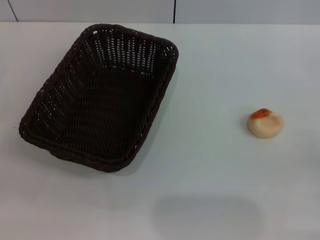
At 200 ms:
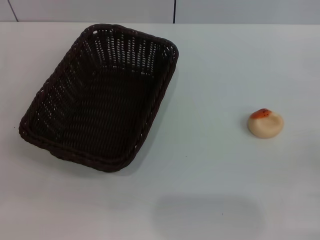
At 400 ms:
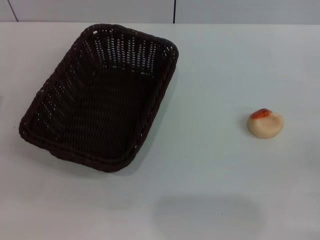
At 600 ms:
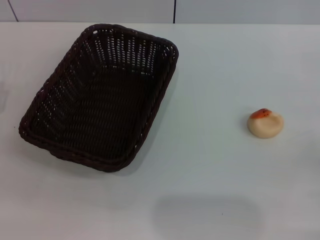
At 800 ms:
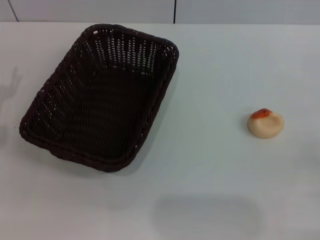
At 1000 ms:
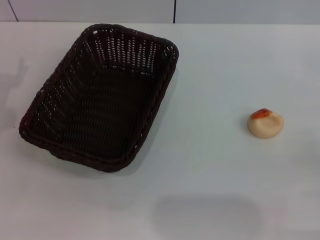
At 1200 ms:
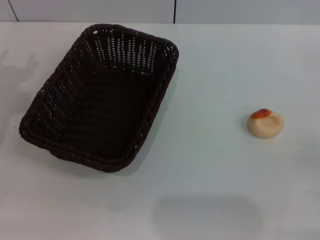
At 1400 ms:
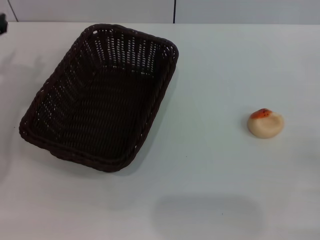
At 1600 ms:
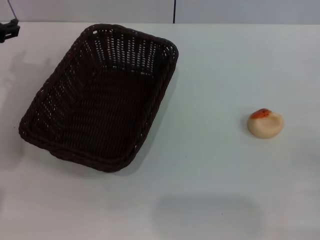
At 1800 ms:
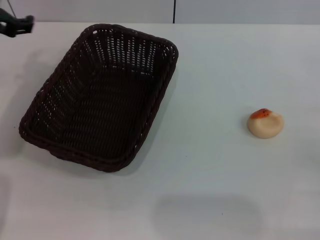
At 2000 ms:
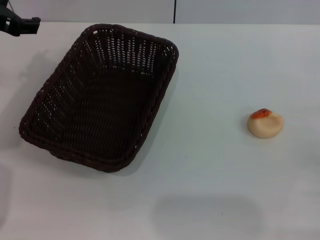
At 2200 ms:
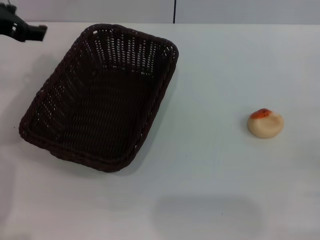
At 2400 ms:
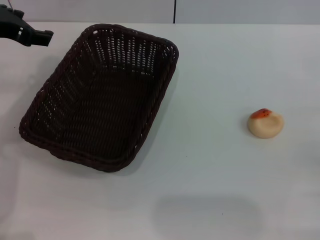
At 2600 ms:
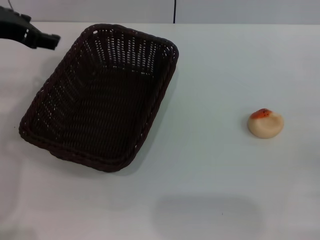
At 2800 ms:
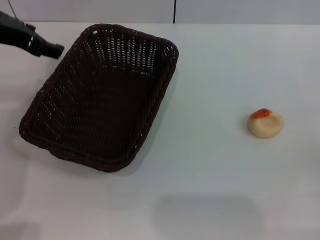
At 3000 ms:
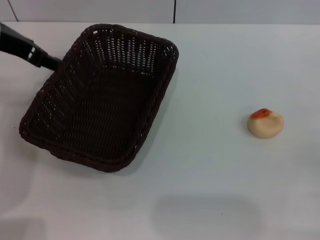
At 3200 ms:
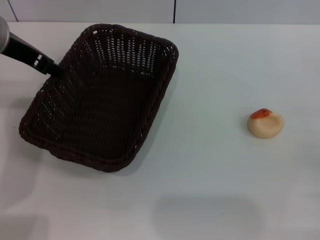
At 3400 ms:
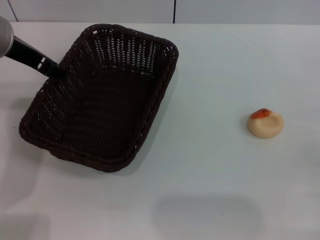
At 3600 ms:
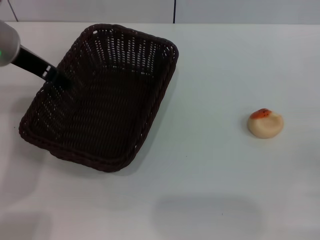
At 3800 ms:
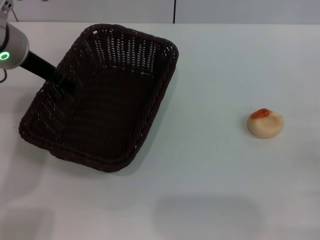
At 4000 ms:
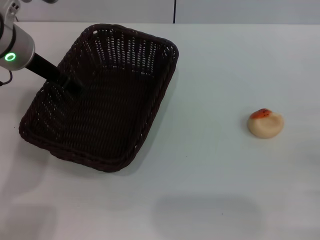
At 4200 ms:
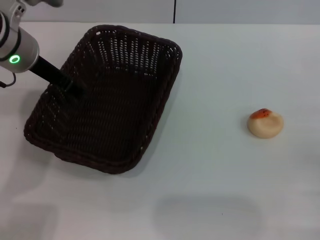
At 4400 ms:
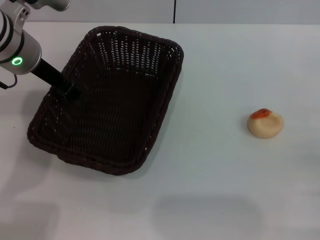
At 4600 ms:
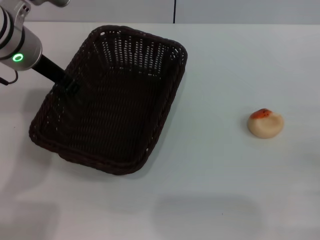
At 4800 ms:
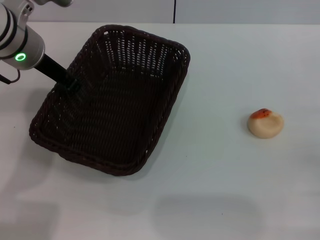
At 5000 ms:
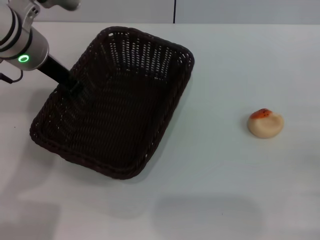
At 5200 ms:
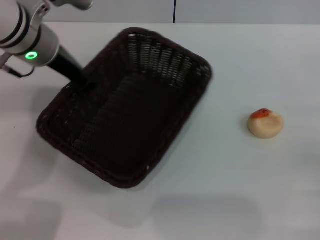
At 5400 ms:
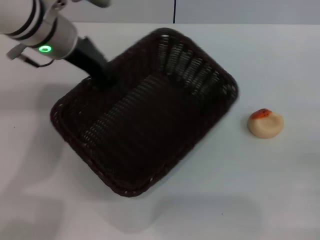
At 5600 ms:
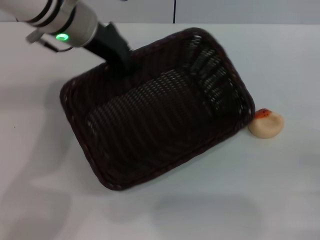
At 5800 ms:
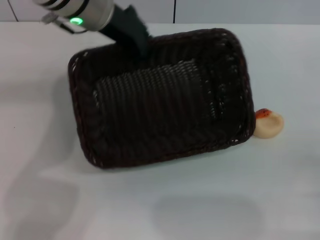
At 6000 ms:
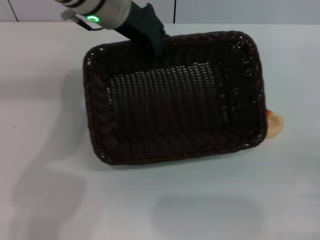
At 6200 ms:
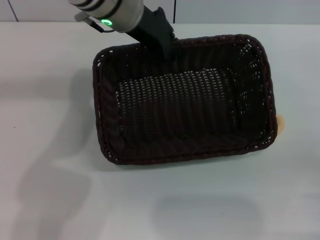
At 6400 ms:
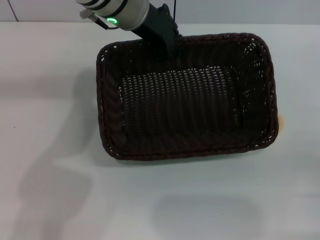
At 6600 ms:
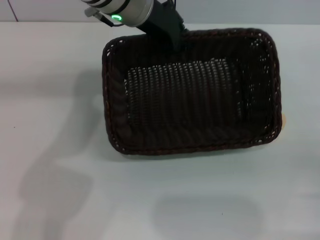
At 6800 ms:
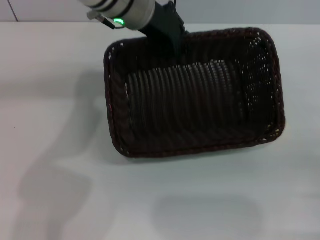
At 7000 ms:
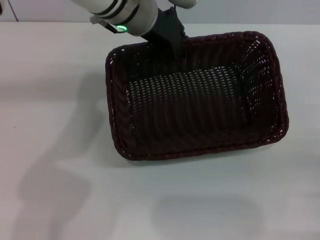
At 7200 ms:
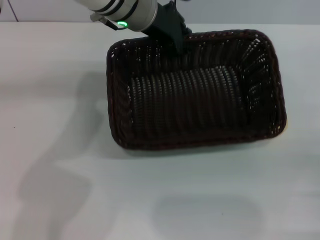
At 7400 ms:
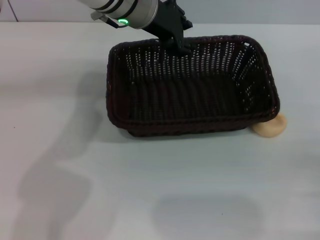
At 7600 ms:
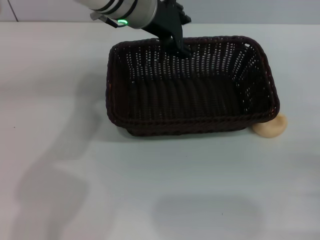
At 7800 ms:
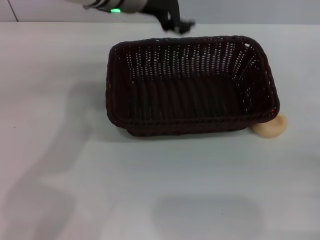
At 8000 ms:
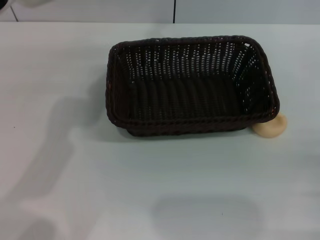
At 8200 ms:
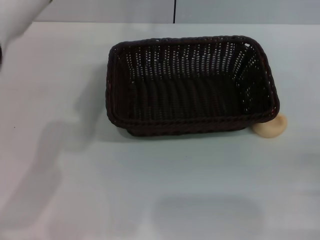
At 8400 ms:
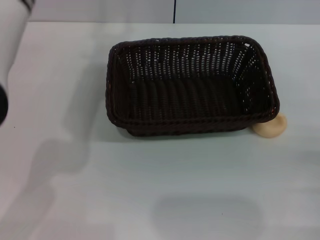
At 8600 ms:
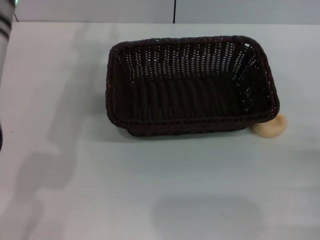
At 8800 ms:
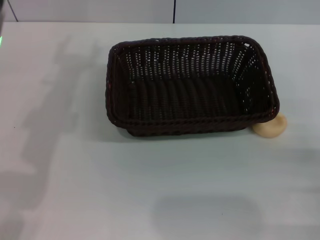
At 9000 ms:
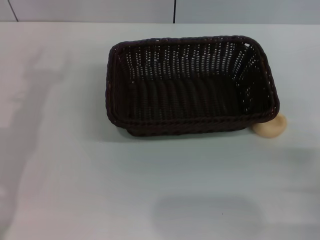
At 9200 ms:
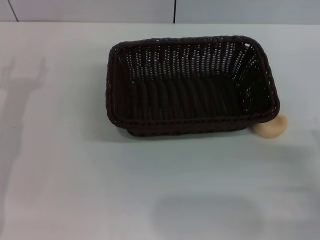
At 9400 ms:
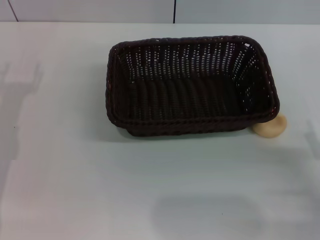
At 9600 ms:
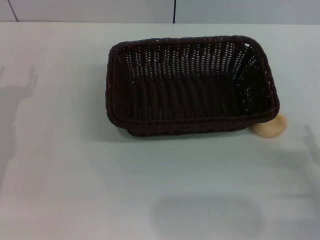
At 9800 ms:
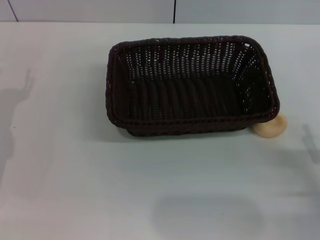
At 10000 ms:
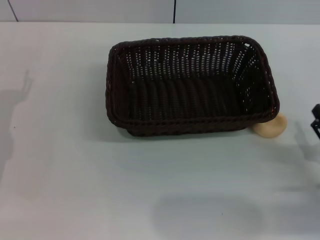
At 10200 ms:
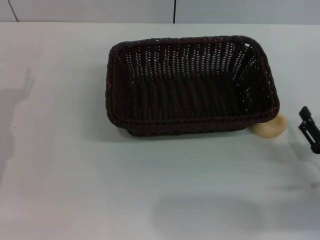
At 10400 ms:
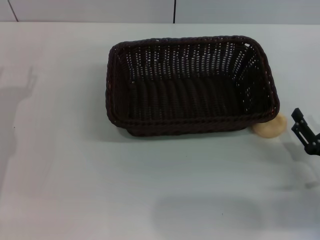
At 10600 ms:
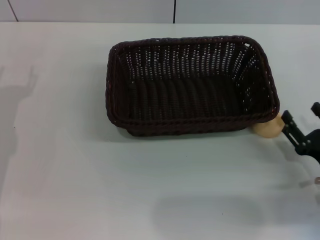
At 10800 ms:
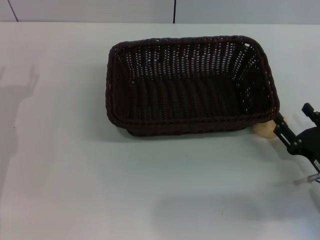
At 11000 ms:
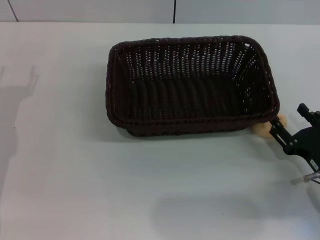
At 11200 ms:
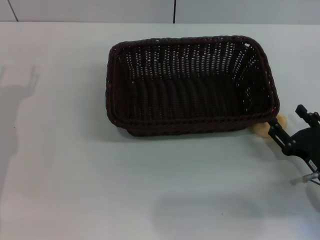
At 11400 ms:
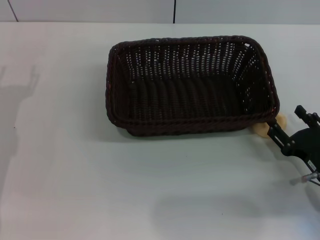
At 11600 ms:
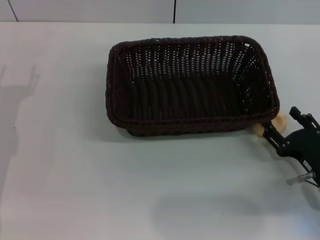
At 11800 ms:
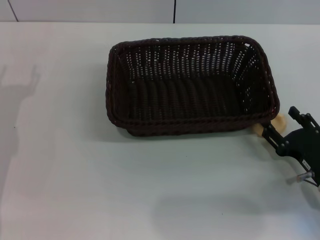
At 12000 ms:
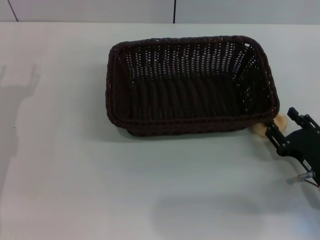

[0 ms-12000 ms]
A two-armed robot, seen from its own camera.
Step, 0 ms to 7600 ms: Move the basket to the center of view with the left gripper.
1600 ms to 3000 ms: The left gripper changes place by about 5 cm.
3000 ms to 4400 ms: The left gripper changes place by about 5 cm.
4400 ms to 6000 ms: The left gripper shifts approximately 10 cm to the right, and closes up.
6000 ms to 7600 ms: The left gripper opens its fingers.
7600 ms to 9000 ms: The left gripper goes roughly 25 cm to the left and backward, and opens its fingers.
9000 ms to 10400 ms: The right gripper shifts by roughly 5 cm.
10400 ms to 12000 ms: The grippers move only a little.

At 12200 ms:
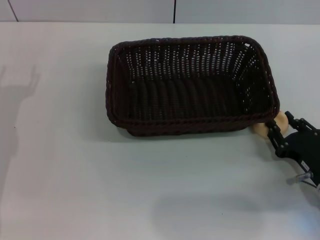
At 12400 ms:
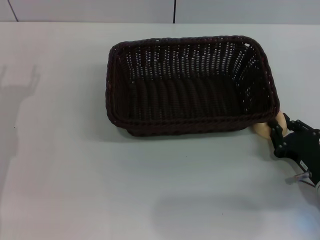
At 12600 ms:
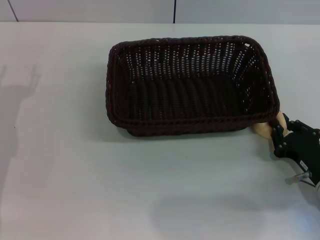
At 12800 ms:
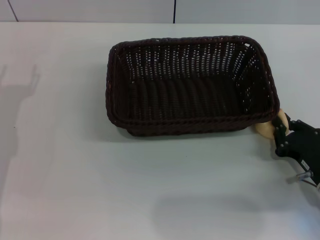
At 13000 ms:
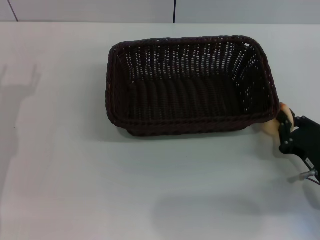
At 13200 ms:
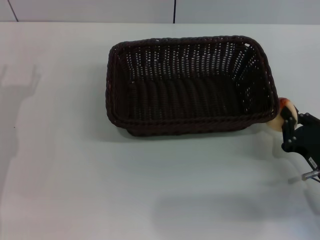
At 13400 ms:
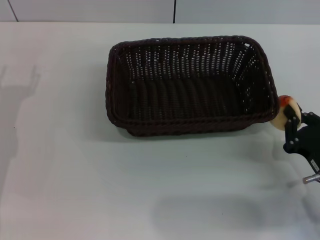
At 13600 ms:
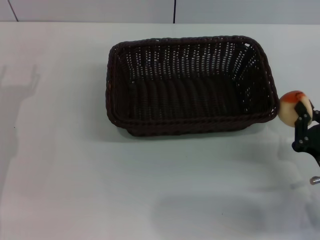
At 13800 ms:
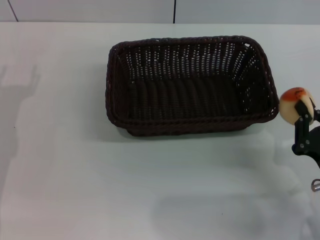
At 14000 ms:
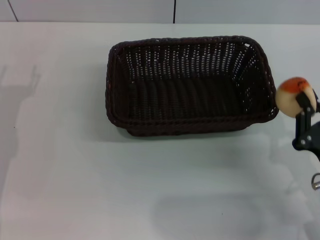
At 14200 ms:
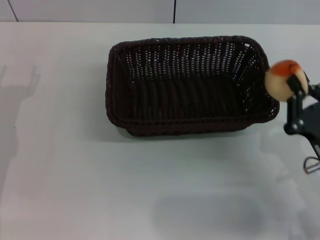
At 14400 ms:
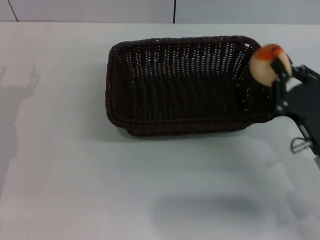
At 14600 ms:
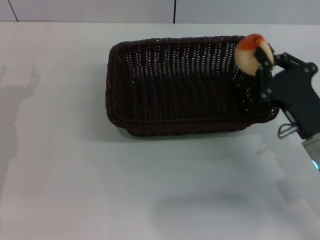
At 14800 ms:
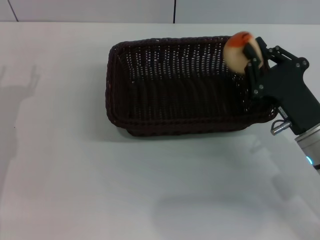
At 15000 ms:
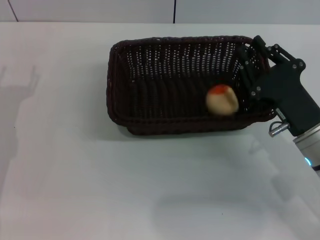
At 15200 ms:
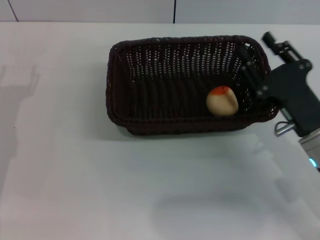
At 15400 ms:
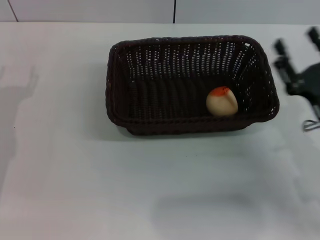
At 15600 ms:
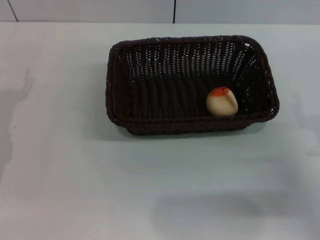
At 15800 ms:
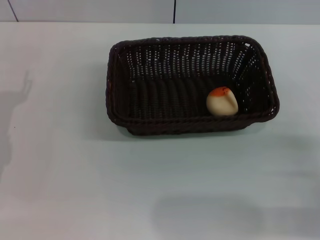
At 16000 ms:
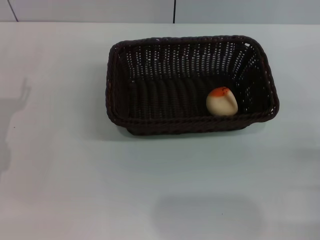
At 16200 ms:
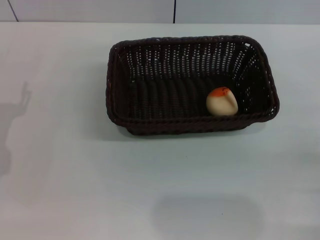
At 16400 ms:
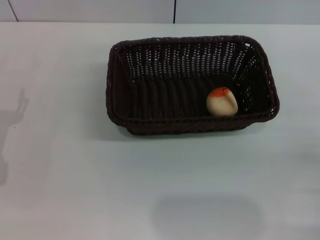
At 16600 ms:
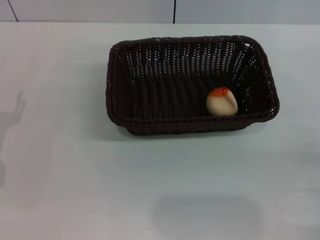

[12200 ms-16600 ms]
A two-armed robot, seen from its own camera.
Step, 14000 ms to 15000 ms: Place the egg yolk pastry into the basket with the right gripper.
12200 ms to 13600 ms: The right gripper closes its fingers.
13600 ms to 15200 ms: The right gripper moves forward, some 5 cm, and opens its fingers.
15200 ms to 16600 ms: The right gripper shifts roughly 15 cm to the right and backward.
